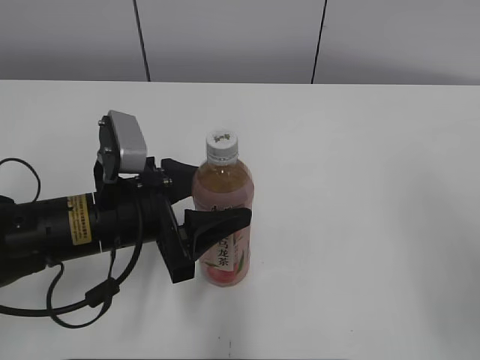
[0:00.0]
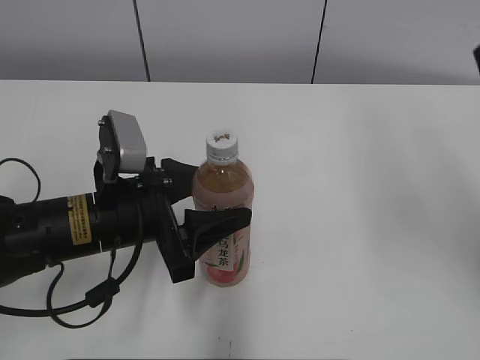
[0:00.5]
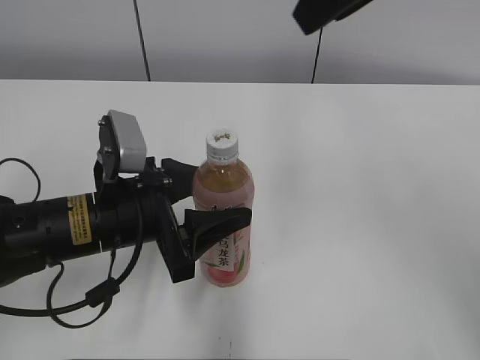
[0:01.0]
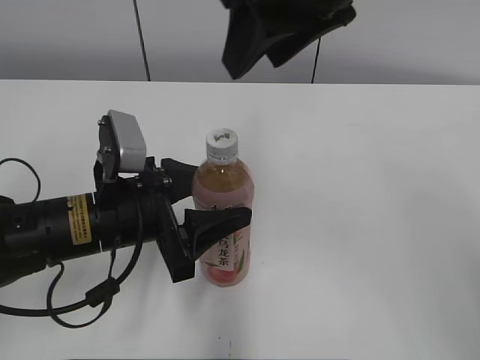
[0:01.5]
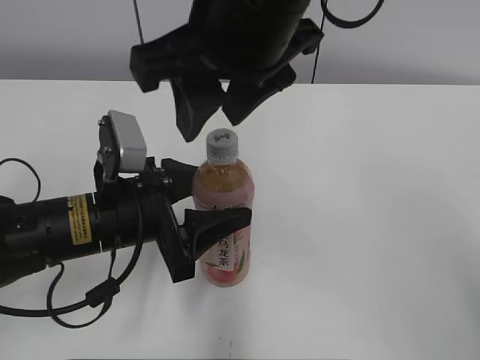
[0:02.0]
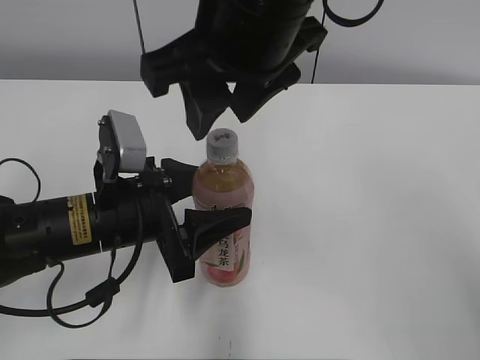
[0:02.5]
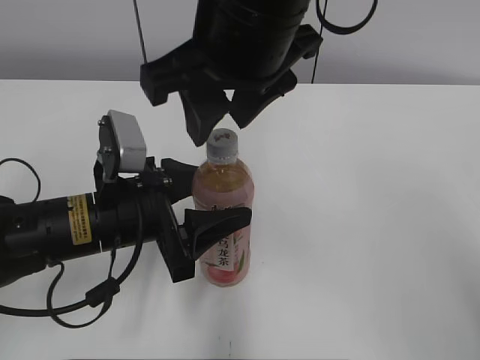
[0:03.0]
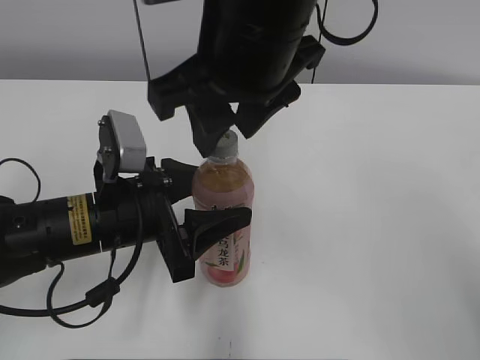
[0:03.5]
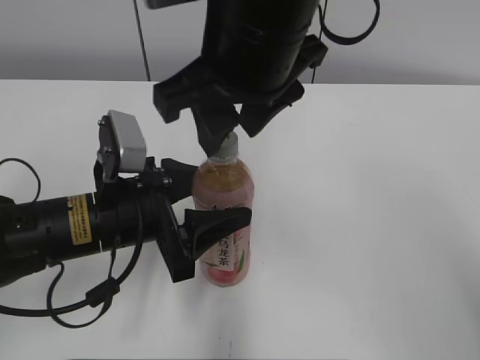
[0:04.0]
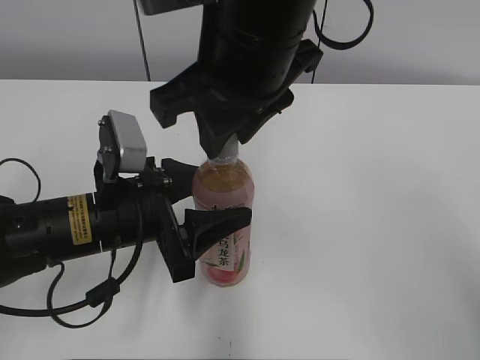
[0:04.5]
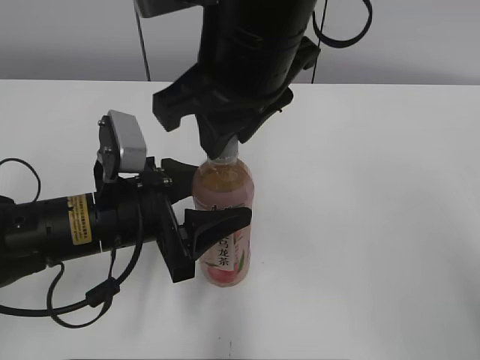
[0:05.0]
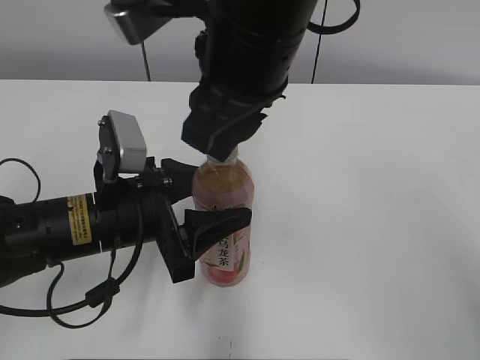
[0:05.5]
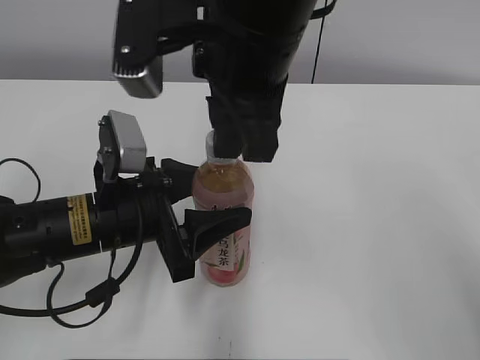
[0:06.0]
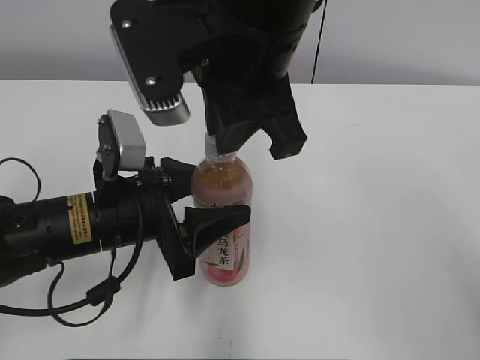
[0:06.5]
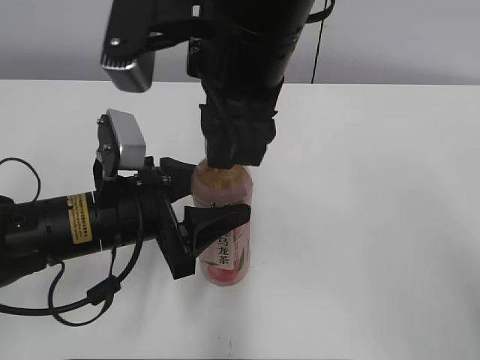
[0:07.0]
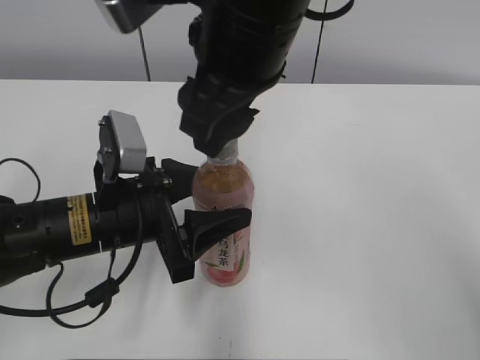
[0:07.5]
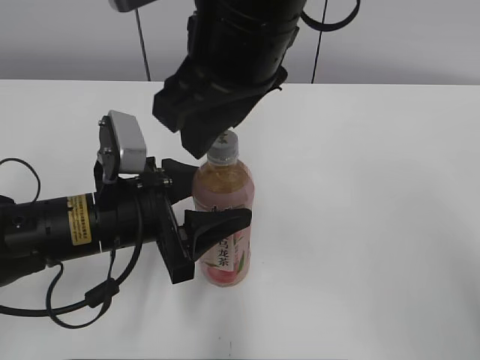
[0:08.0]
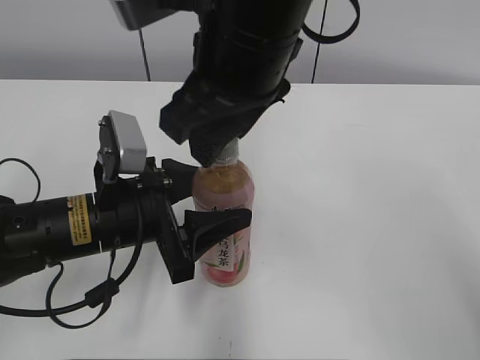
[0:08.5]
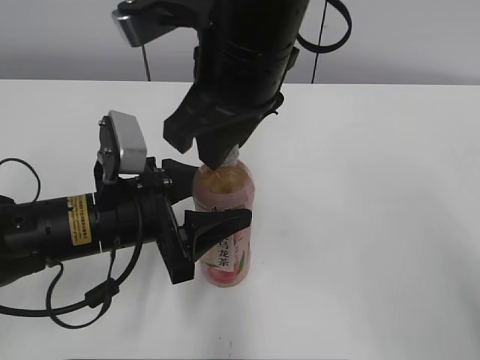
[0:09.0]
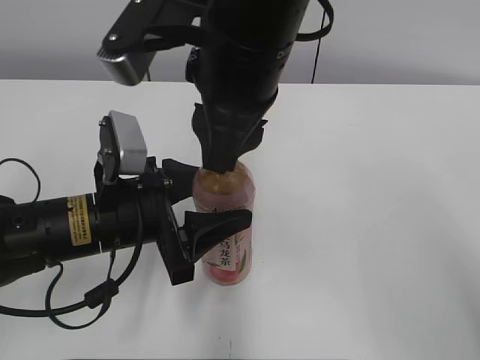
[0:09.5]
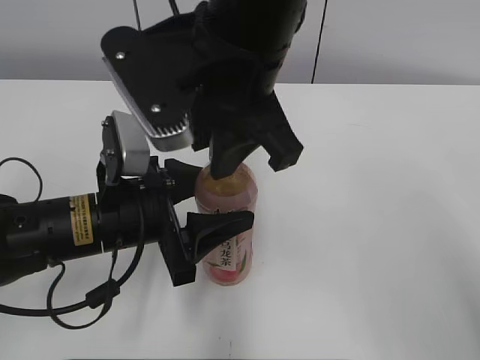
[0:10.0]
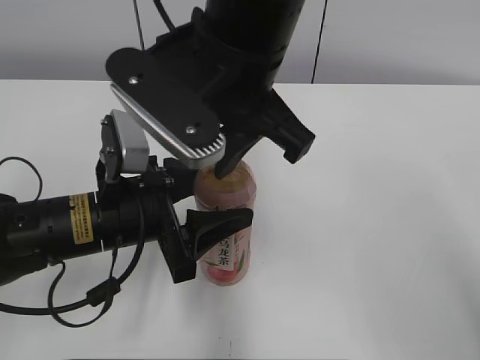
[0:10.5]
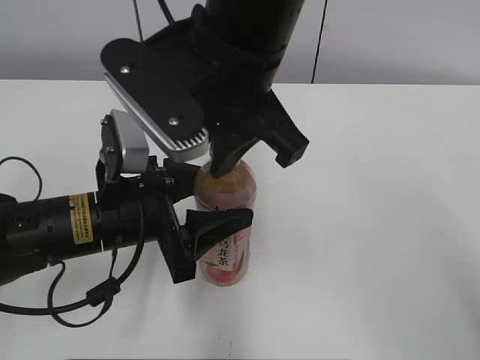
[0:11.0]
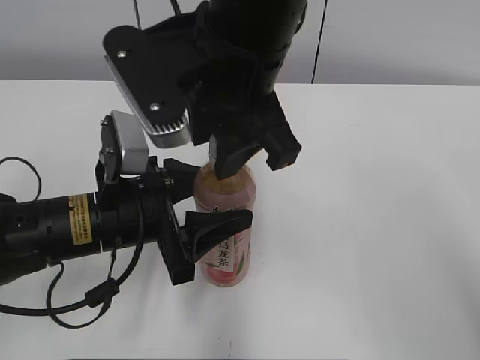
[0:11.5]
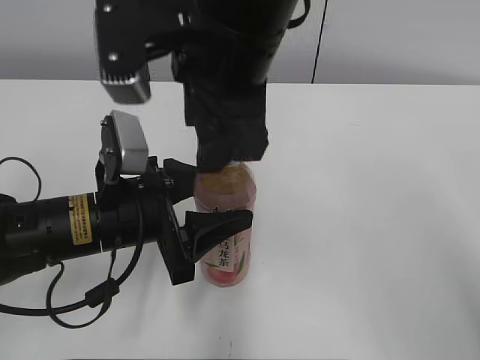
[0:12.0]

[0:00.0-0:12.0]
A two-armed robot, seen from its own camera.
0:00.0 to 0:02.0: The right gripper goes some 30 cm to the left and forward.
0:02.0 to 0:04.0: The grippers move only a little.
0:04.0 to 0:06.0: The right gripper closes its fingers.
0:06.0 to 0:08.0: The right gripper opens up.
0:08.0 to 0:10.0: The right gripper closes its fingers.
0:10.0 to 0:12.0: The right gripper opens up.

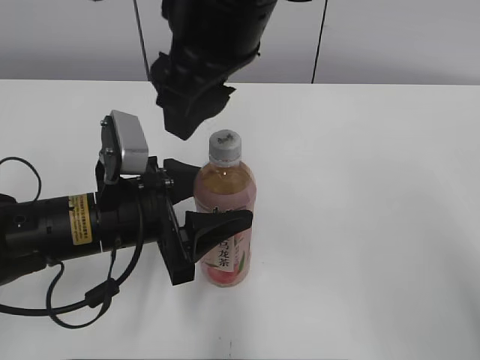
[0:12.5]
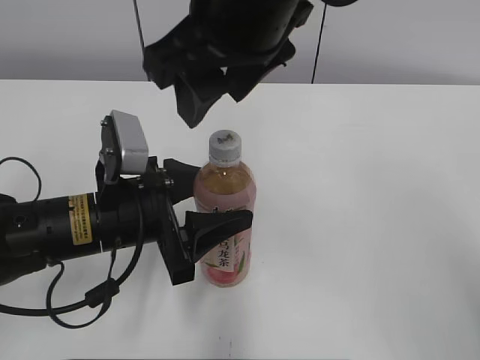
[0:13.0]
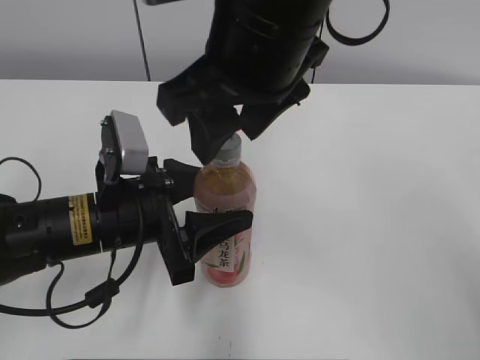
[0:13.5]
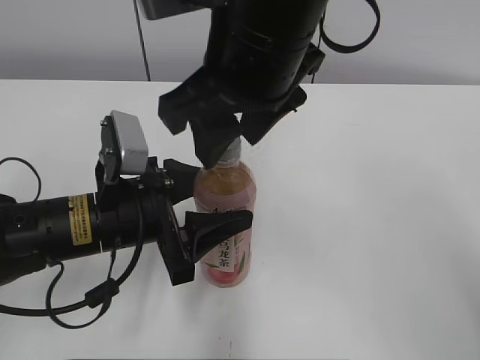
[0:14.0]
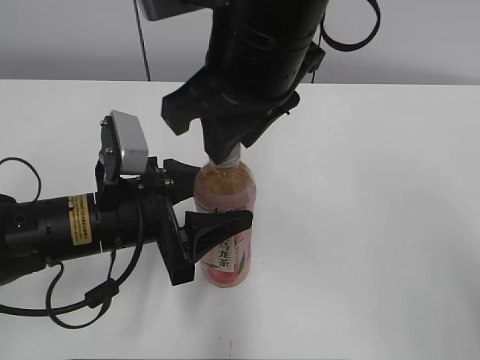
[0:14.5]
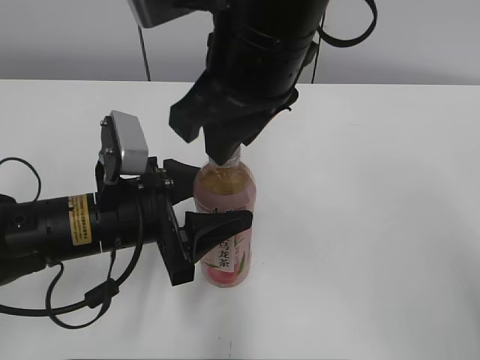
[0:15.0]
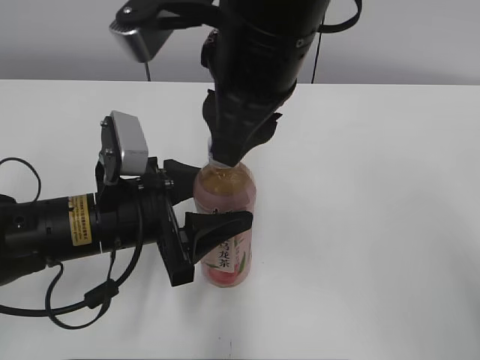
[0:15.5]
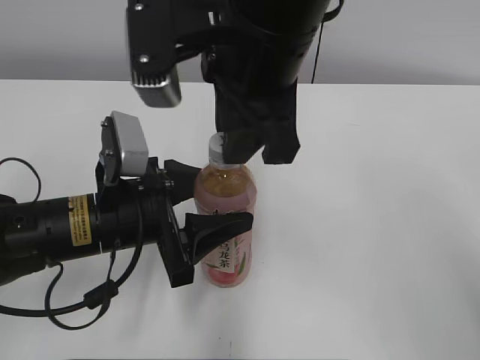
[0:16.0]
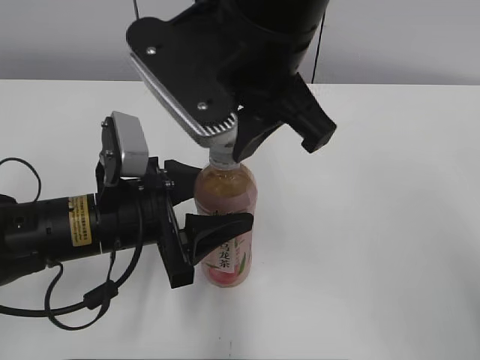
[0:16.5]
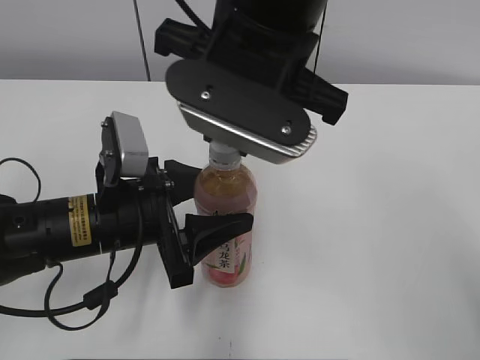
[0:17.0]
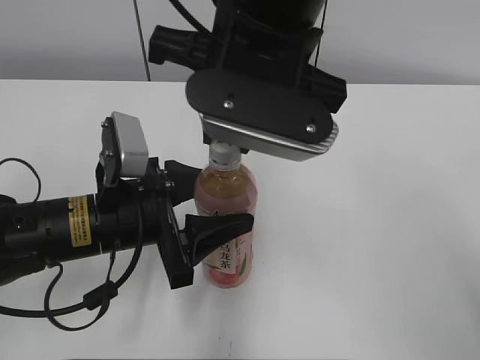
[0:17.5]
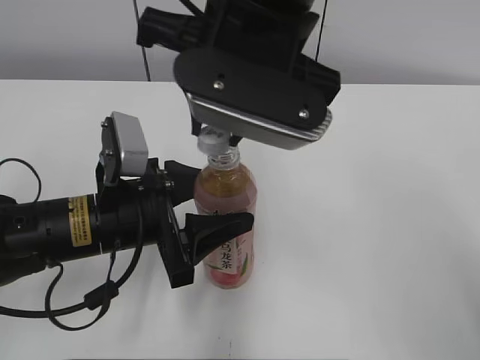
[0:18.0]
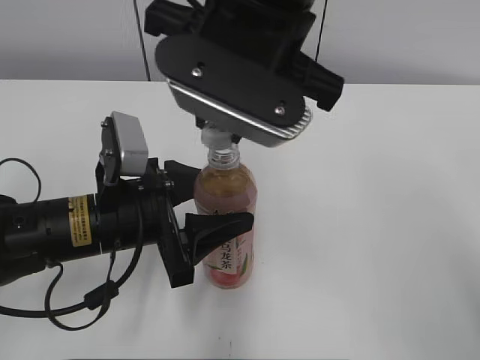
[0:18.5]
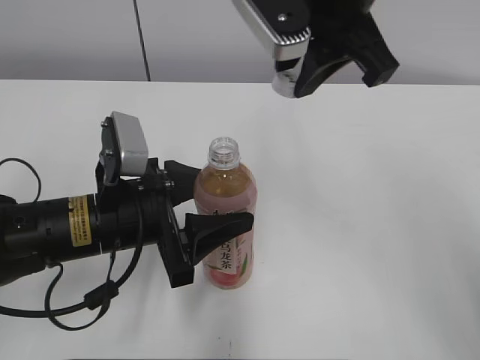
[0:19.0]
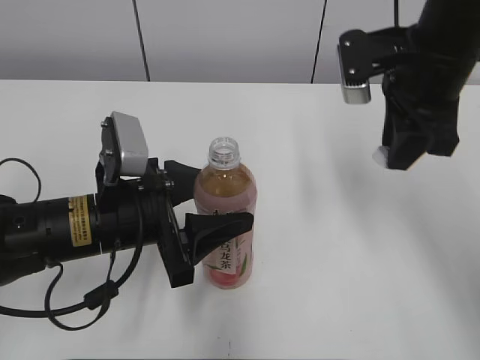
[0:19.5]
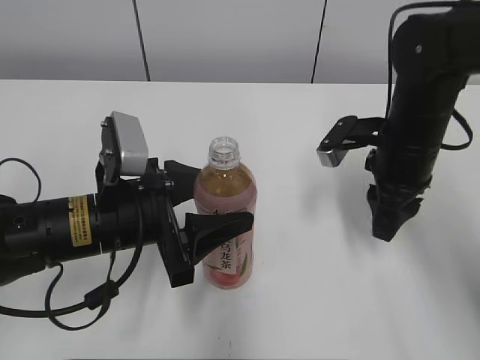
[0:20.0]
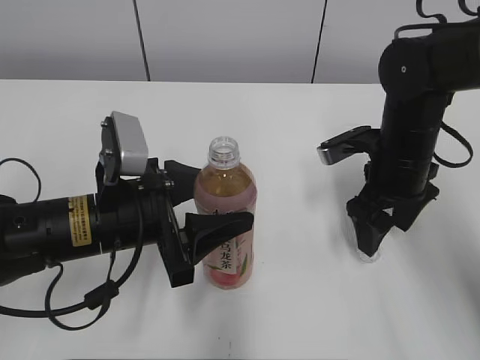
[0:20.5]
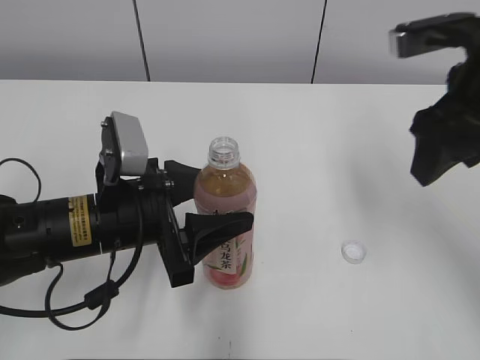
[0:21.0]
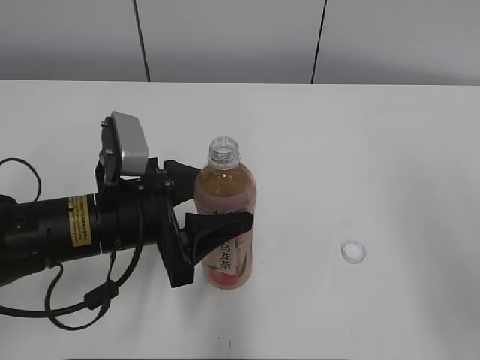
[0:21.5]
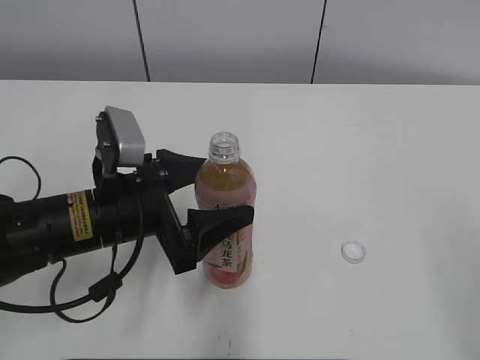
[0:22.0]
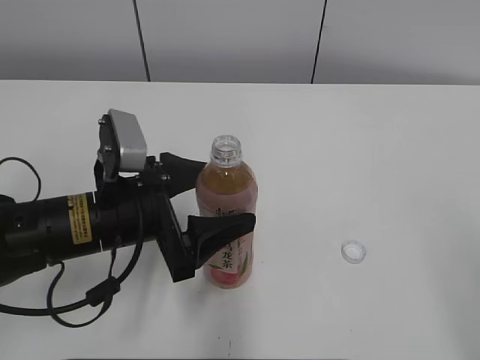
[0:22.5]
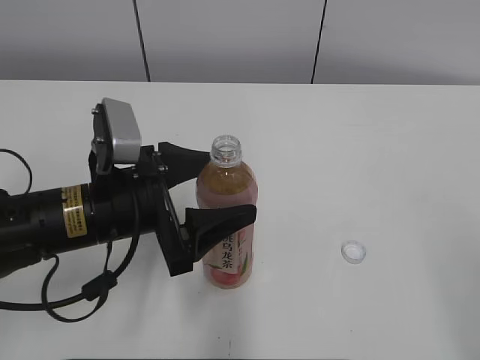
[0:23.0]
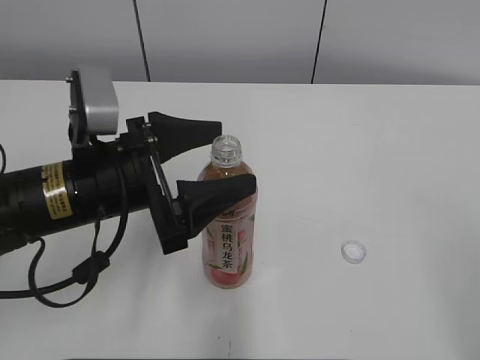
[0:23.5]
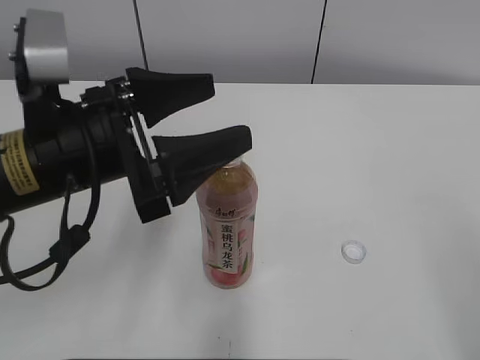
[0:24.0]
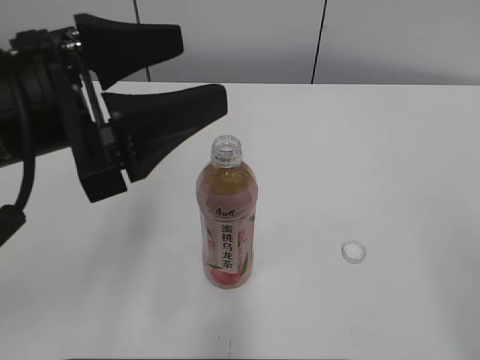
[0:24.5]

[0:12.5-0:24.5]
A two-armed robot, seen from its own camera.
Step, 0:18.5 to 0:20.5: Place the bottle cap on the right.
0:12.5 to 0:14.5: The right gripper closes its fingers.
0:18.5 to 0:20.5: The right gripper goes about 25 cm downward and to the right, and opens its fingers.
0:20.5 to 0:22.5: The right gripper travels backward and upward by some 35 cm, while the left gripper opens its fingers.
0:22.5 to 0:24.5: The left gripper moves upward, approximately 15 cm.

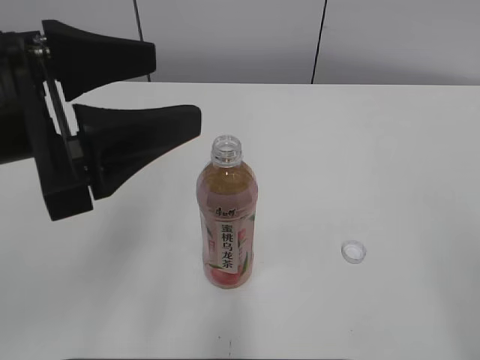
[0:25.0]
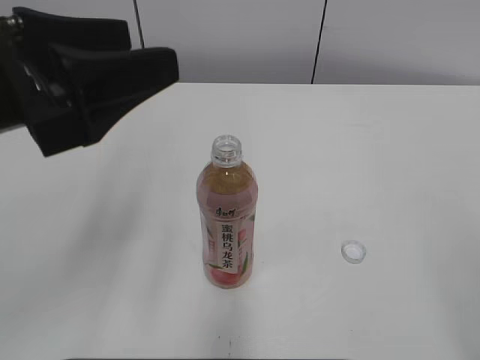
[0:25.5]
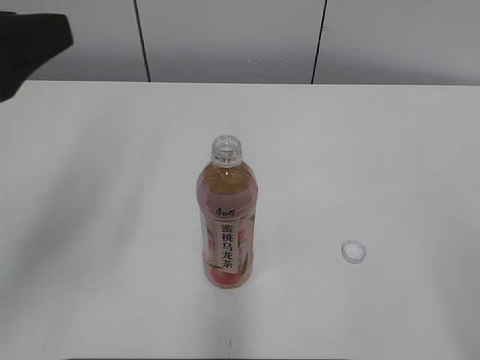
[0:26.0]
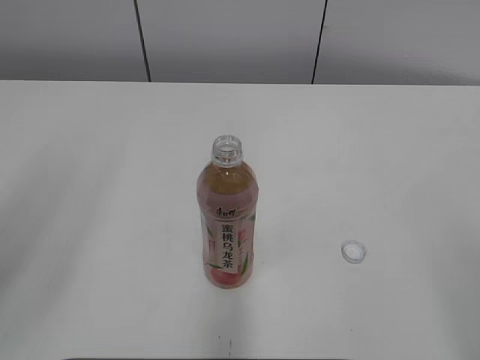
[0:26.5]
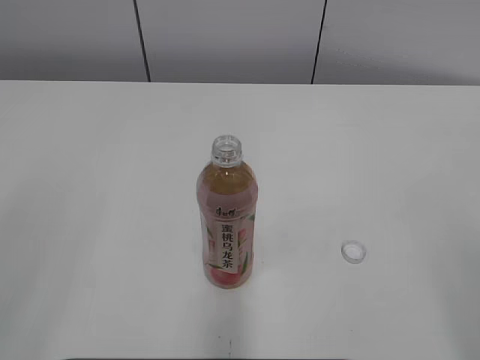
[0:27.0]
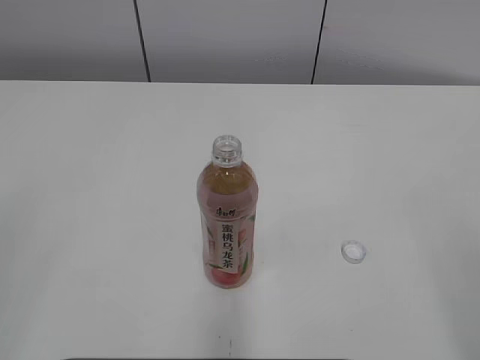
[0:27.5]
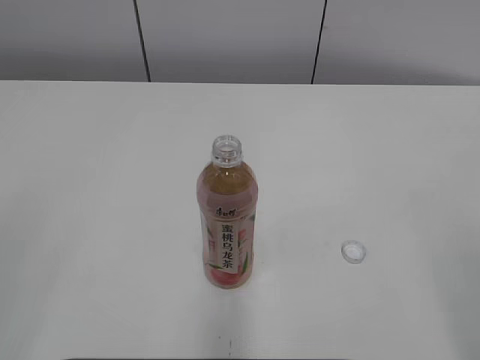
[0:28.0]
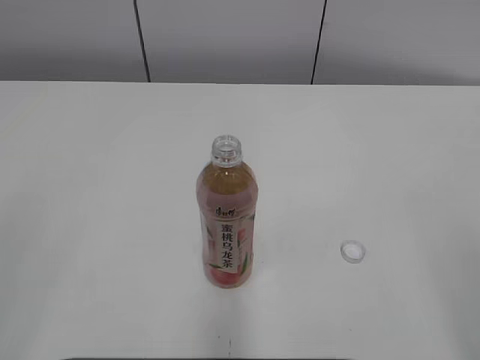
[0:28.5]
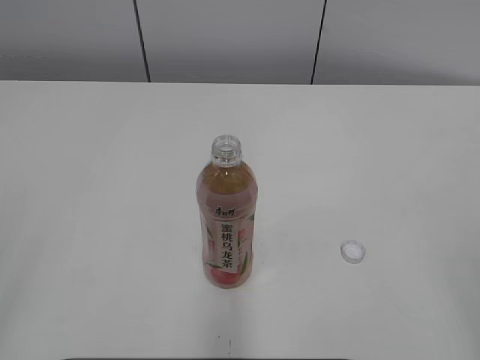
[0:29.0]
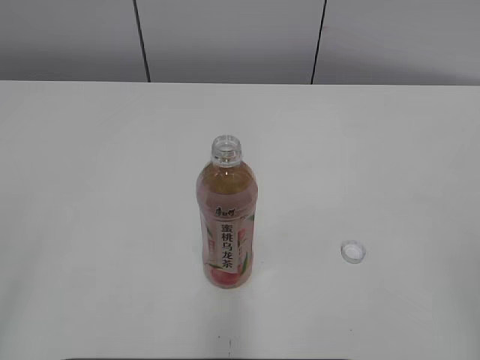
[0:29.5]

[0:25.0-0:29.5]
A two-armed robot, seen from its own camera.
0:25.0 to 0:27.0: The left gripper goes roughly 20 cm backward and to the left, and closes.
